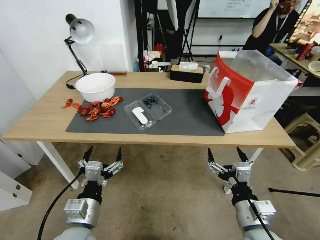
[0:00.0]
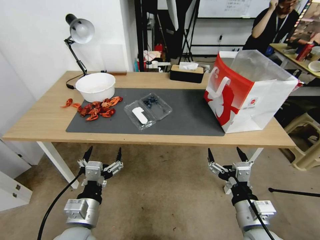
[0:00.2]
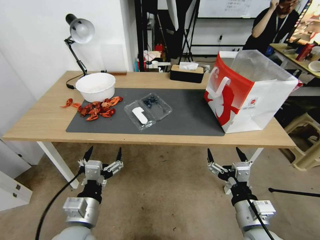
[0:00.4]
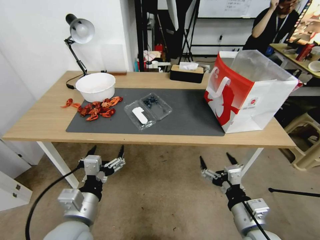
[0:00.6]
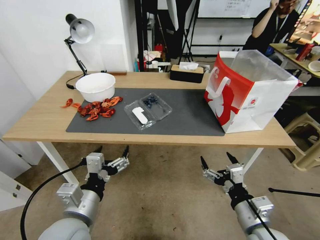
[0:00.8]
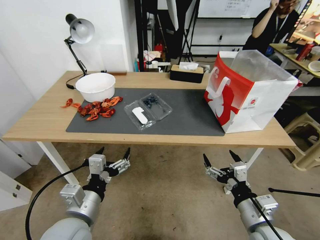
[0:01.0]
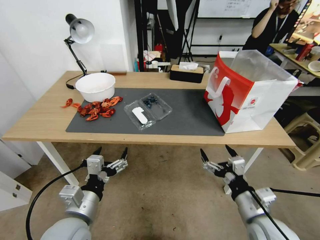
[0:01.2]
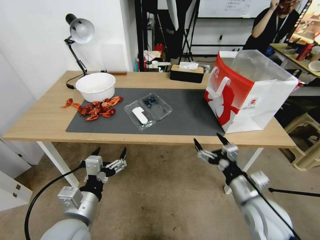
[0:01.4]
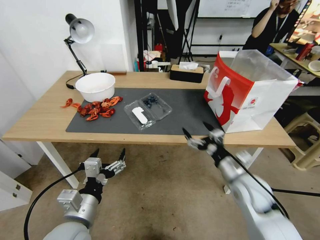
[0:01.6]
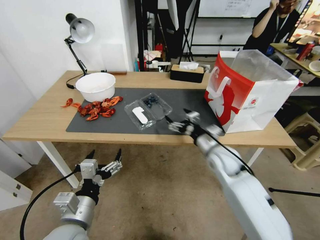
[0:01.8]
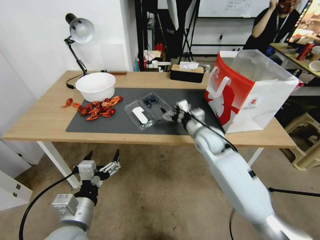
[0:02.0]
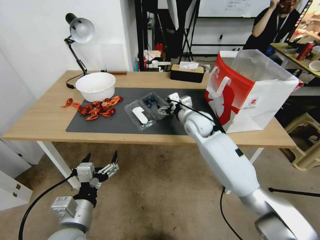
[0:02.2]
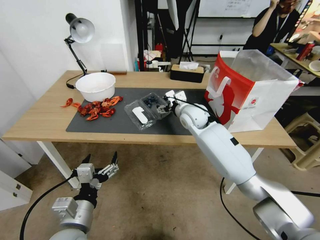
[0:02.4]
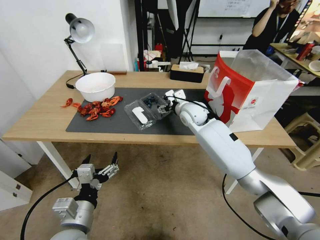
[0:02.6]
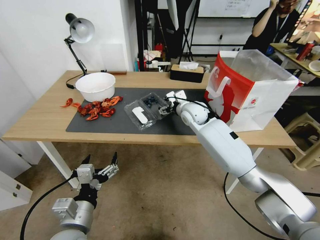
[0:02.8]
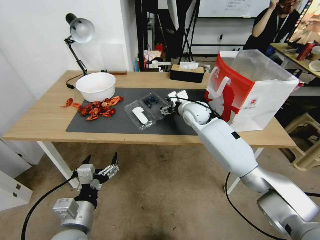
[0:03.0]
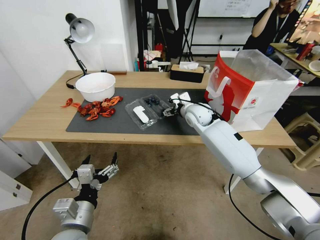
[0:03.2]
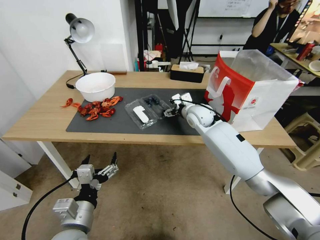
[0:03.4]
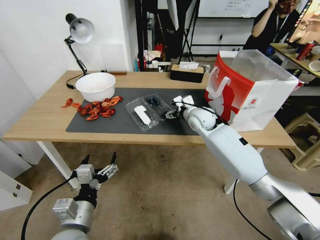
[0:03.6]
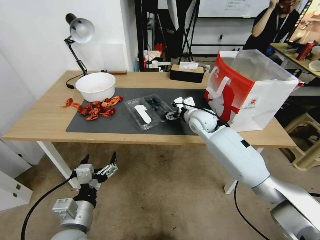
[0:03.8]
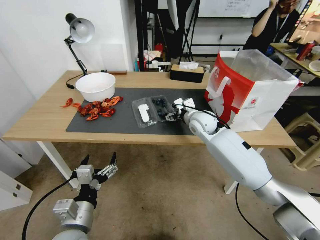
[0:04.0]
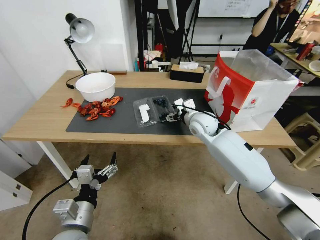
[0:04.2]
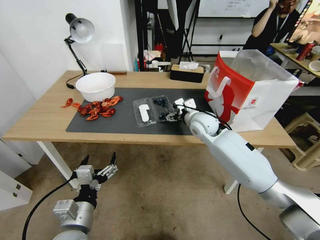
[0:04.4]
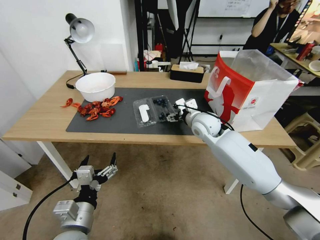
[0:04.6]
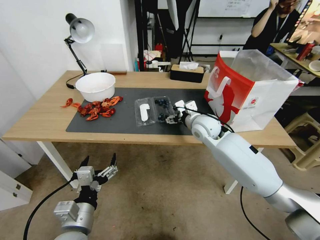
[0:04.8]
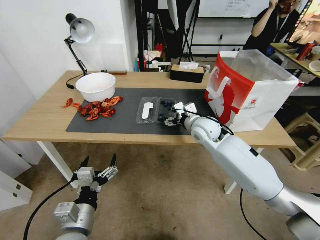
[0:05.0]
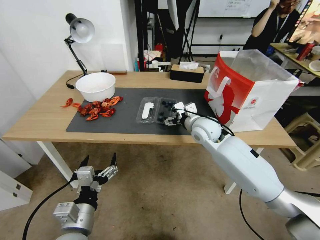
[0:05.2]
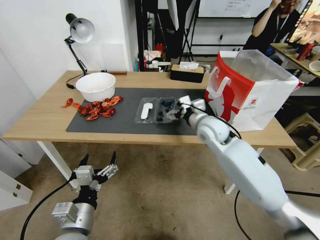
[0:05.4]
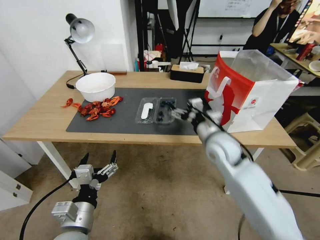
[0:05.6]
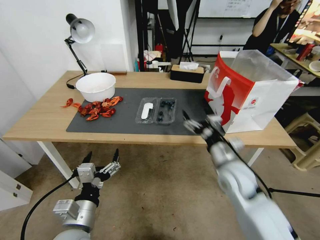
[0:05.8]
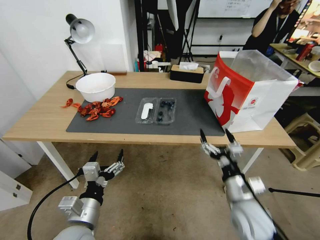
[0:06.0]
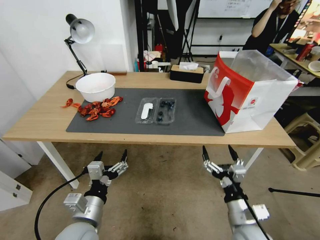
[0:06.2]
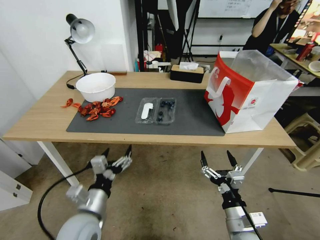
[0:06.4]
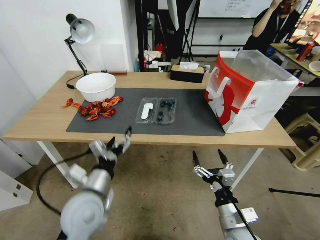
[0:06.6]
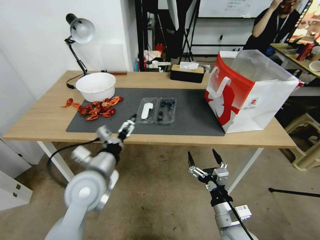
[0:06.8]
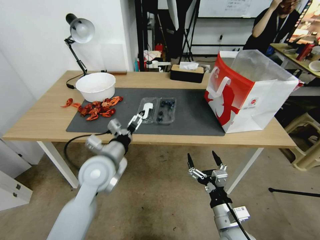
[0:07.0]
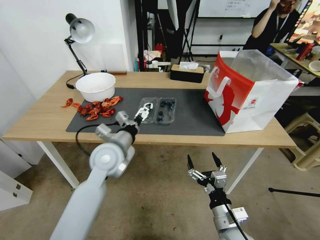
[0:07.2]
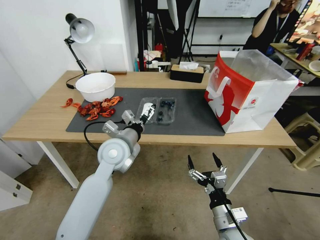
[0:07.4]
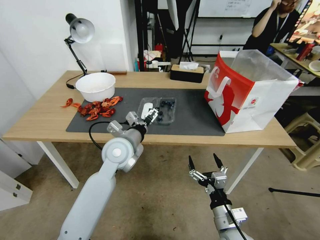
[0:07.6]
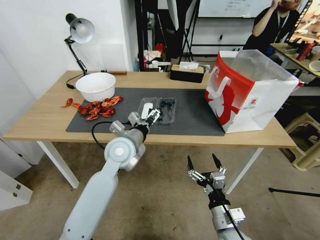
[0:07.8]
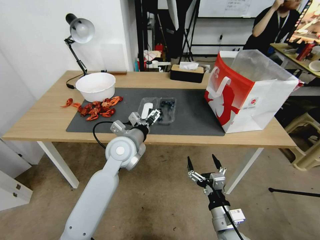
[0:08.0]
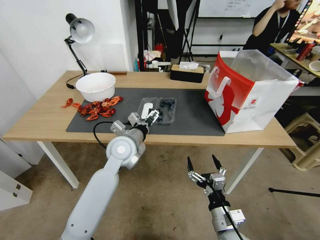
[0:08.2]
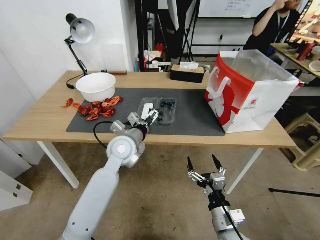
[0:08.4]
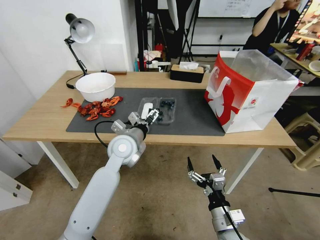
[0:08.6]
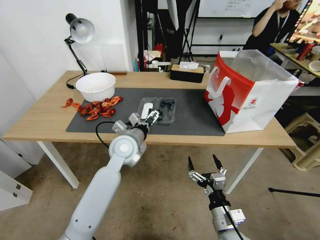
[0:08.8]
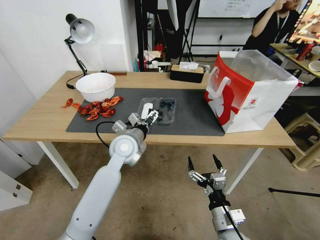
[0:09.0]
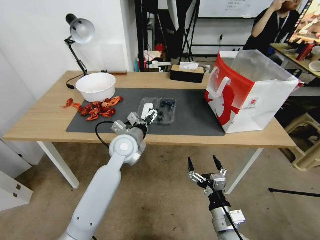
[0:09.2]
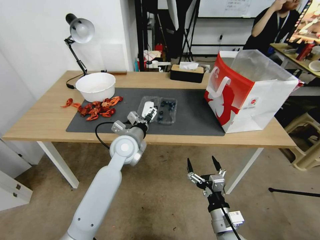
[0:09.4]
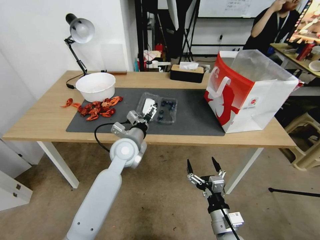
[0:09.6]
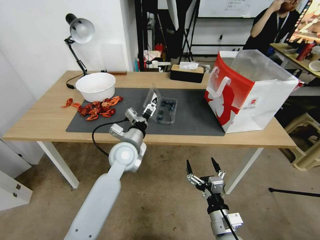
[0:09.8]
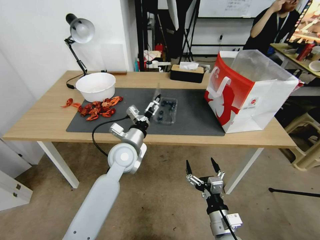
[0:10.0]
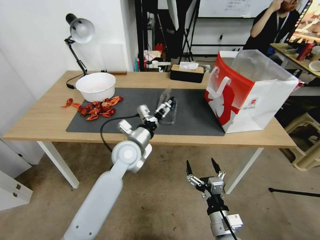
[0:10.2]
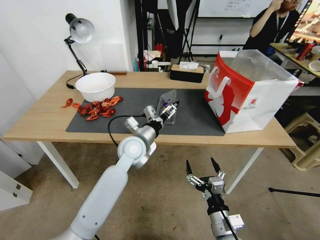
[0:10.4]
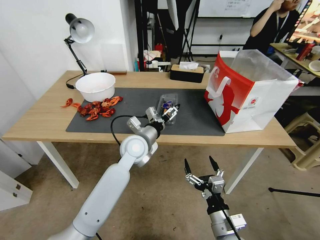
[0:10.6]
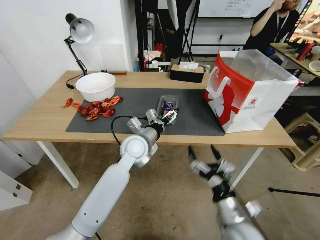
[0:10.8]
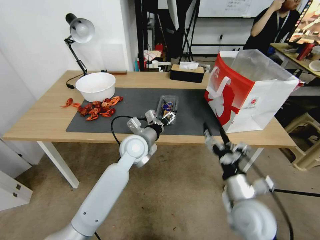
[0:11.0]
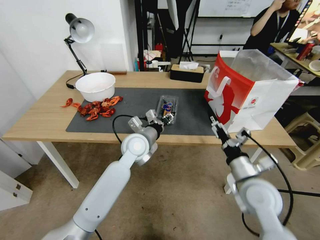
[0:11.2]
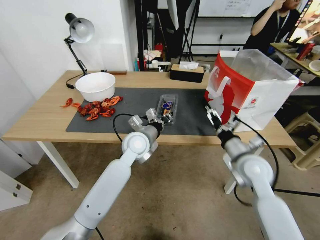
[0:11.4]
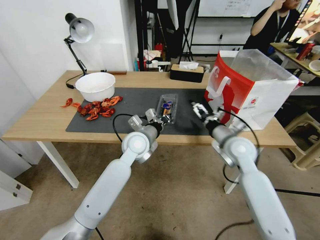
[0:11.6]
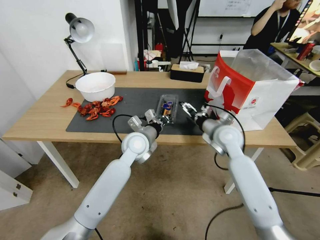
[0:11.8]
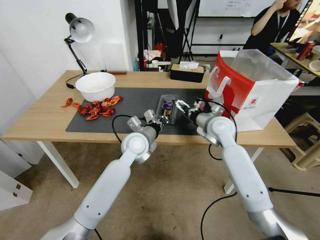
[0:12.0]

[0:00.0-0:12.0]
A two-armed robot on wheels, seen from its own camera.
Task of the whole recording: Close the takeout container lid, then place the container into the takeout bag.
0:01.6 to 0:03.0: The right gripper is displaced forward and to the left by approximately 25 cm.
0:03.0 to 0:04.4: The right gripper heads backward, covering roughly 5 cm.
0:04.4 to 0:06.0: The right gripper is displaced backward by roughly 25 cm.
0:06.0 to 0:07.6: The left gripper goes some 20 cm forward; the right gripper moves backward and downward, some 10 cm.
0:07.6 to 0:09.0: There are only small adjustments of the grippers.
0:10.4 to 0:12.0: The left gripper closes its fingers, while the right gripper travels forward and upward by approximately 35 cm.

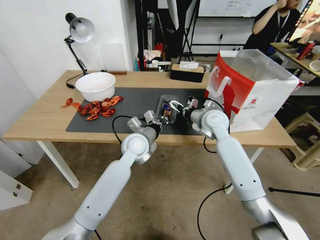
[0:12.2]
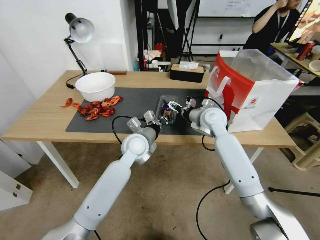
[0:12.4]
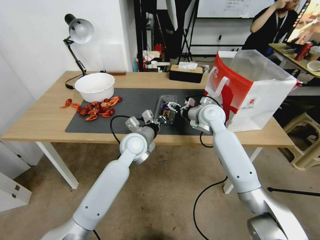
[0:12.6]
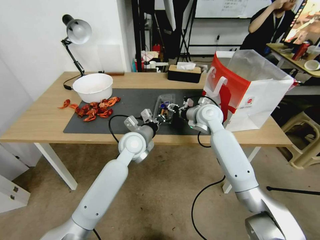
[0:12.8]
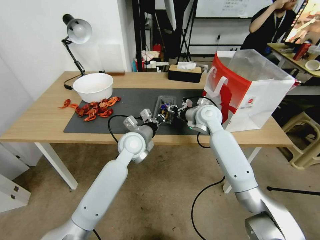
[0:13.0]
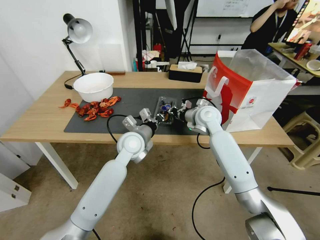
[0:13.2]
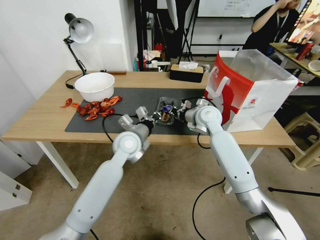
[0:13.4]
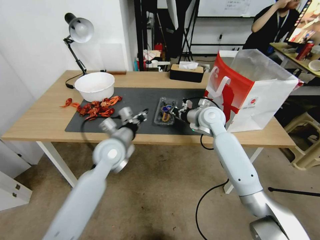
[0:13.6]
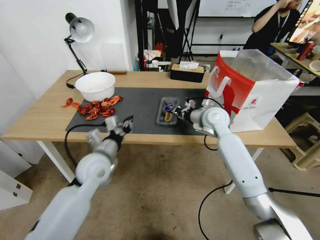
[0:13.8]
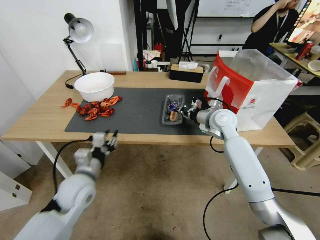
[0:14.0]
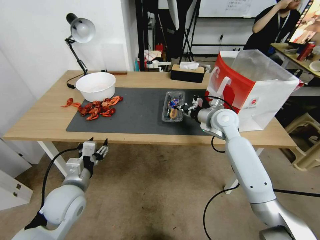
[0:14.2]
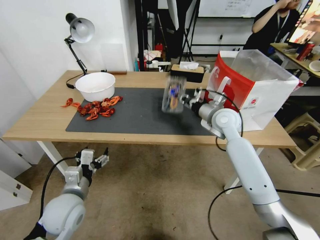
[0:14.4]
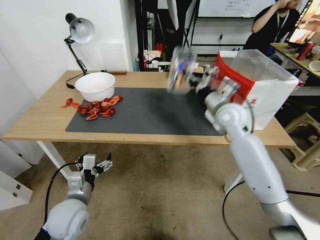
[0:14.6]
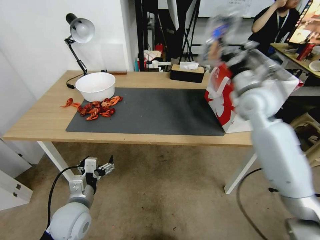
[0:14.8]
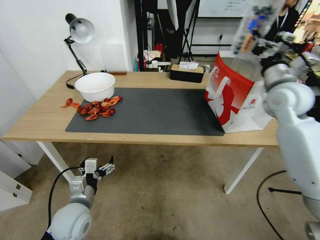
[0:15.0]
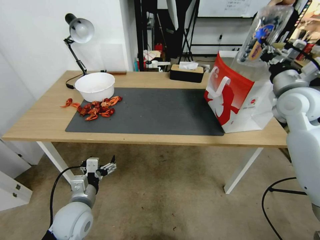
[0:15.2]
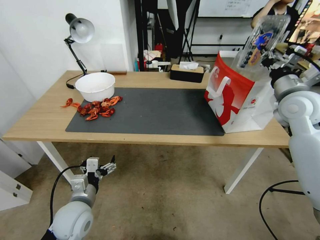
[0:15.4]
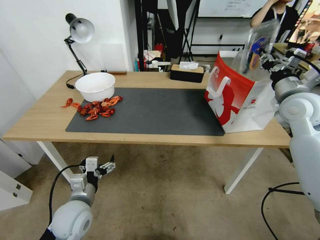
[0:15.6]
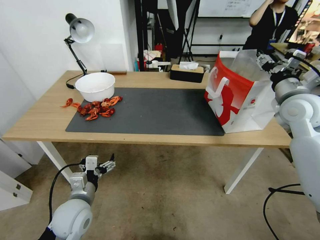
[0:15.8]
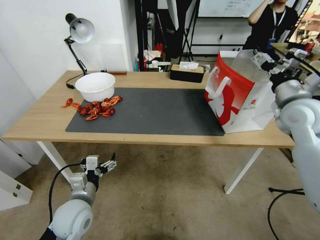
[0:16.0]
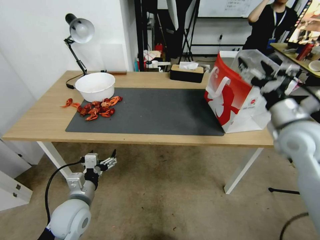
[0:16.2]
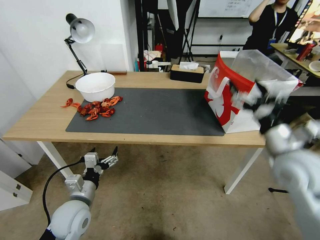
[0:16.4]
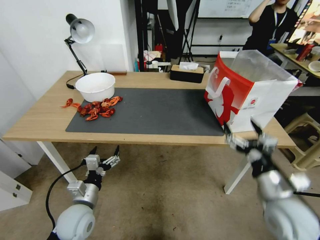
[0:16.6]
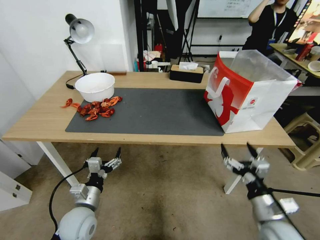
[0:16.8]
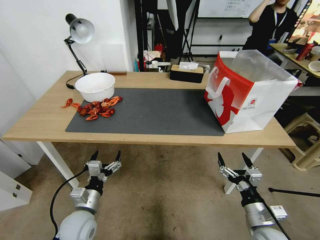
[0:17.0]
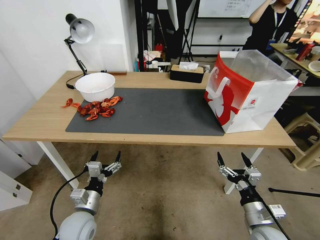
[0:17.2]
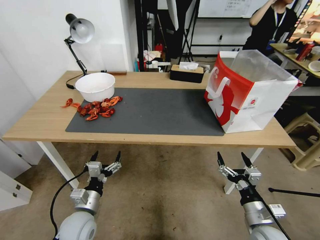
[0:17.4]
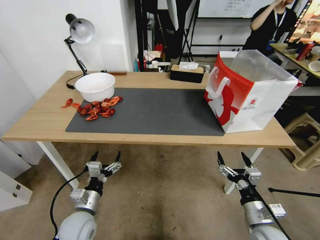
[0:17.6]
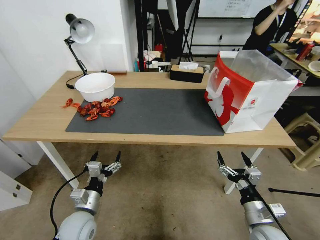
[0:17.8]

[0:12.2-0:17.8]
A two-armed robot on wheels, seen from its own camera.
Task of the whole recording: Close the takeout container lid, then place the container into the takeout bag.
0:12.2 to 0:13.6: The right gripper closes; the left gripper travels to the left by approximately 5 cm.
0:13.6 to 0:15.0: The left gripper shifts some 20 cm backward, downward and to the left, and opens; the right gripper shifts approximately 20 cm to the right and upward.
0:15.0 to 0:16.4: The right gripper shifts about 20 cm backward and downward, and opens.
0:16.4 to 0:17.8: The left gripper ends up approximately 5 cm from where it was. Meanwhile the right gripper shifts about 20 cm downward and backward.
